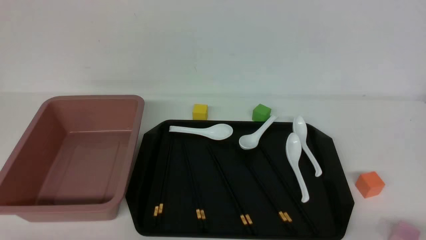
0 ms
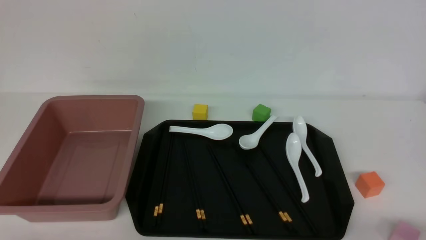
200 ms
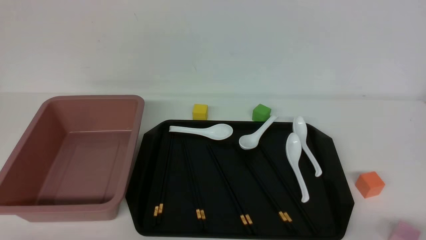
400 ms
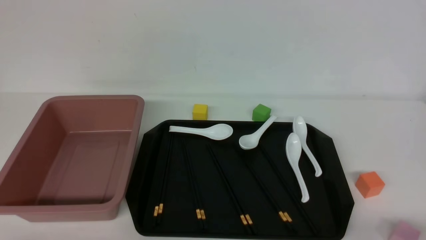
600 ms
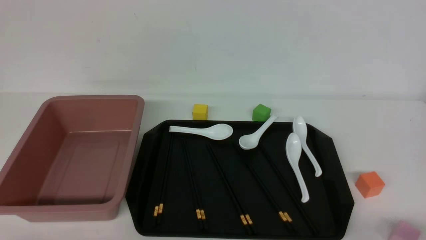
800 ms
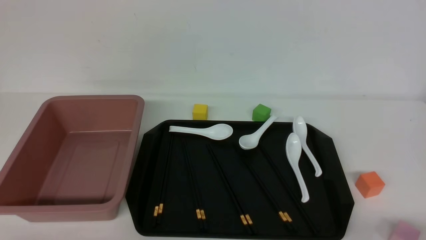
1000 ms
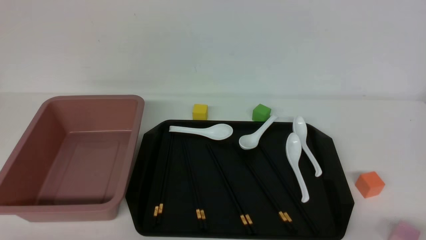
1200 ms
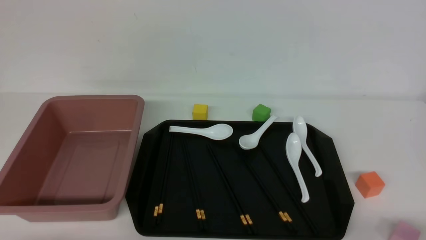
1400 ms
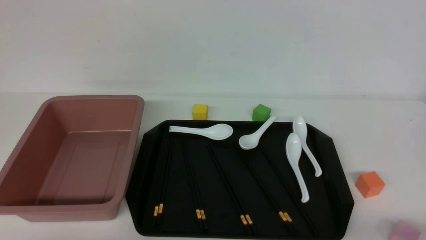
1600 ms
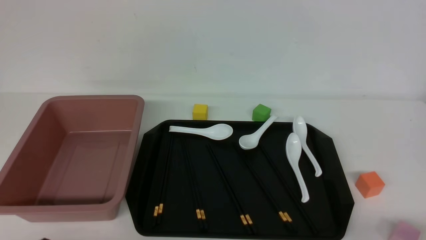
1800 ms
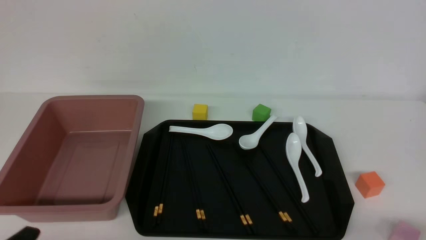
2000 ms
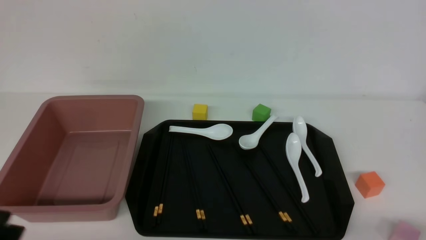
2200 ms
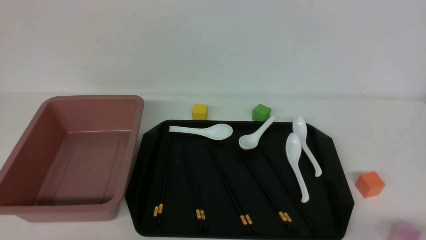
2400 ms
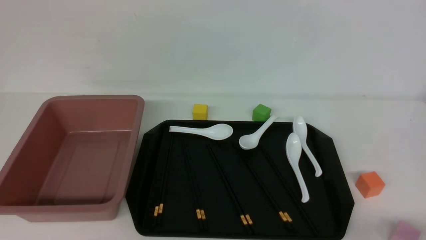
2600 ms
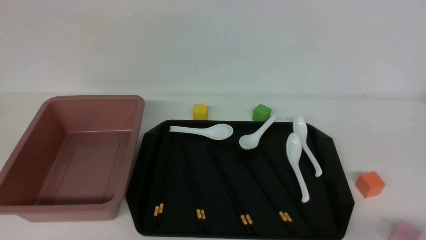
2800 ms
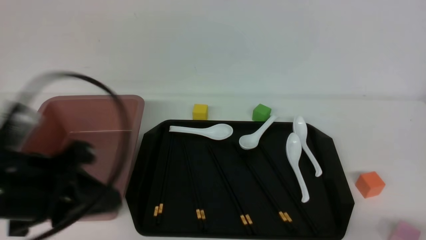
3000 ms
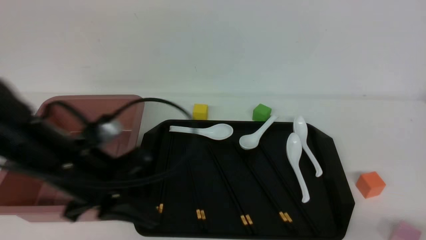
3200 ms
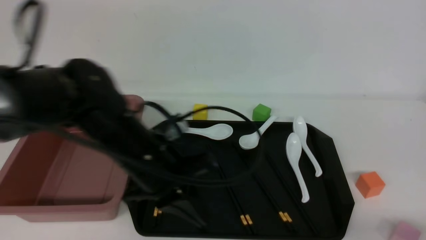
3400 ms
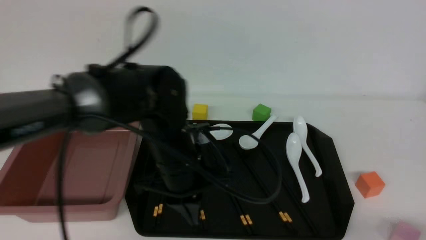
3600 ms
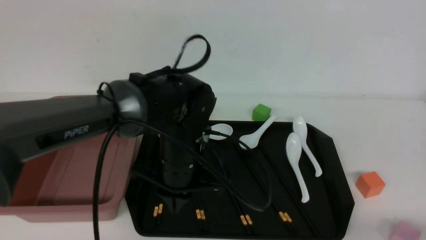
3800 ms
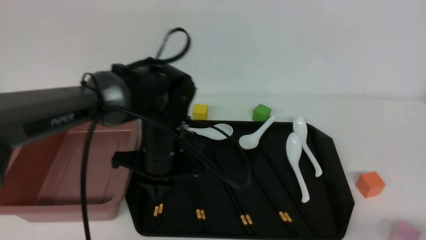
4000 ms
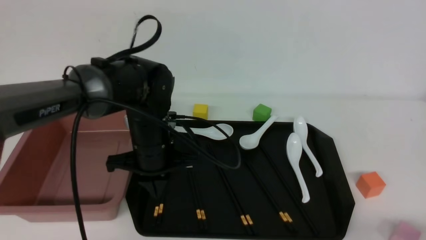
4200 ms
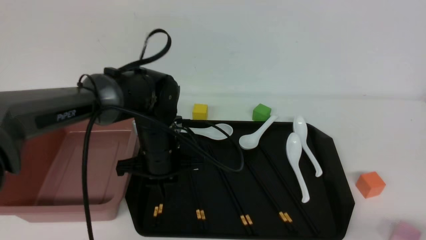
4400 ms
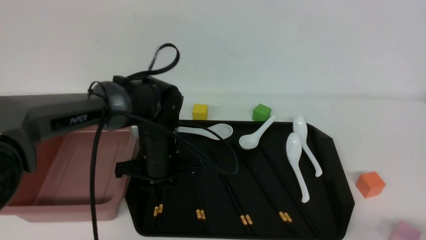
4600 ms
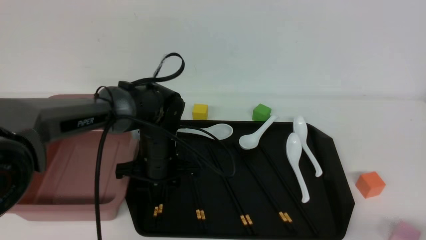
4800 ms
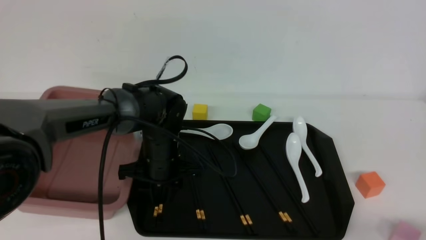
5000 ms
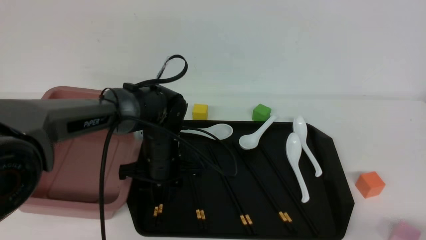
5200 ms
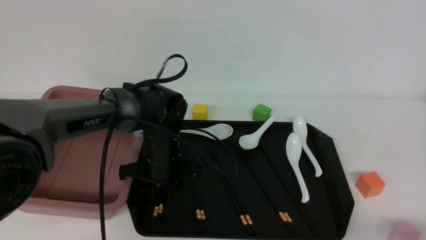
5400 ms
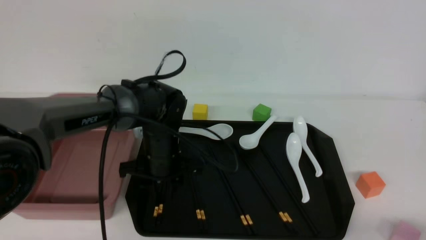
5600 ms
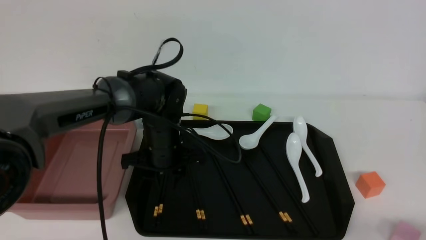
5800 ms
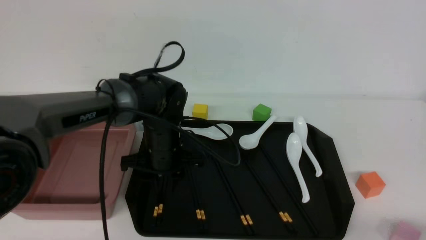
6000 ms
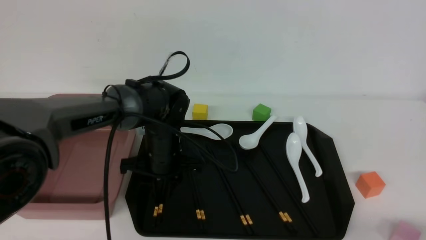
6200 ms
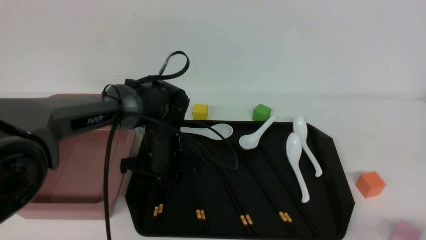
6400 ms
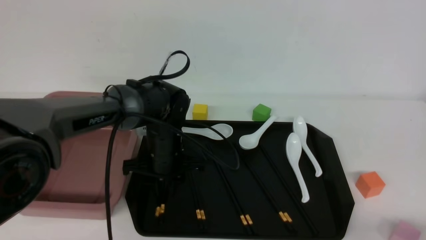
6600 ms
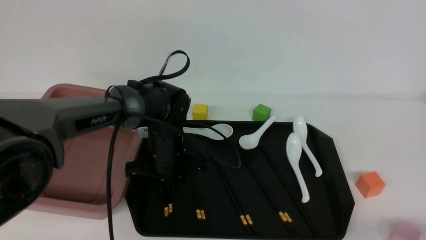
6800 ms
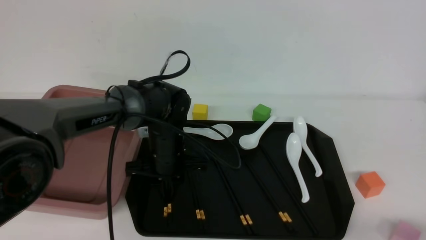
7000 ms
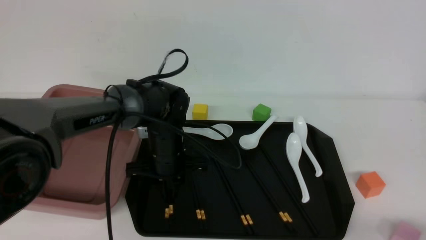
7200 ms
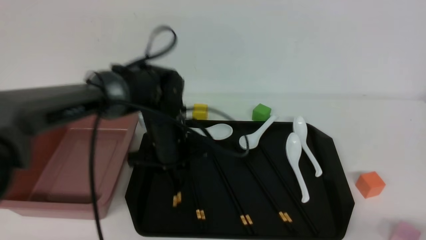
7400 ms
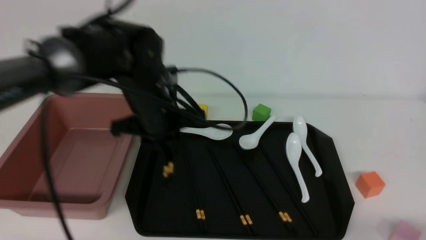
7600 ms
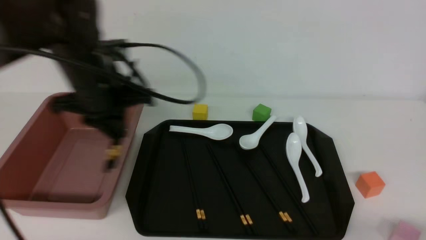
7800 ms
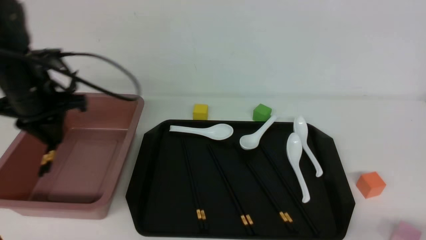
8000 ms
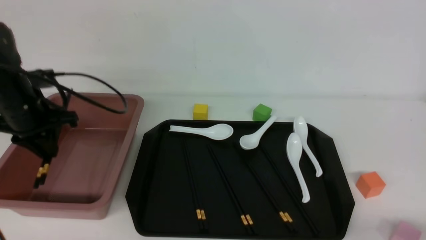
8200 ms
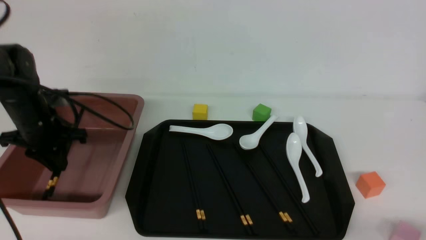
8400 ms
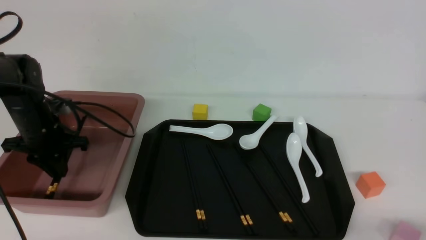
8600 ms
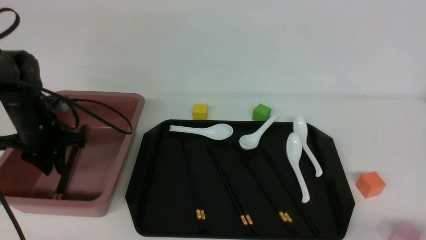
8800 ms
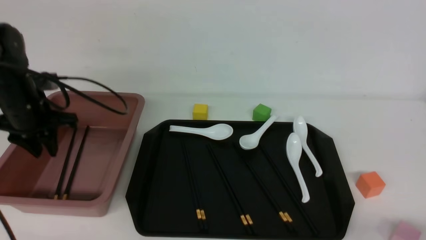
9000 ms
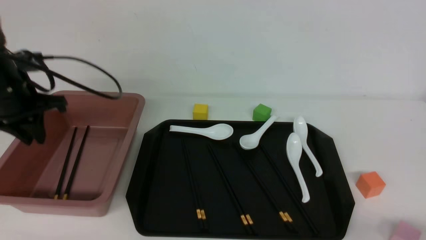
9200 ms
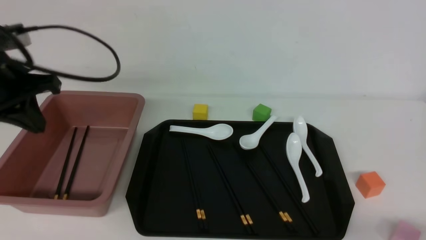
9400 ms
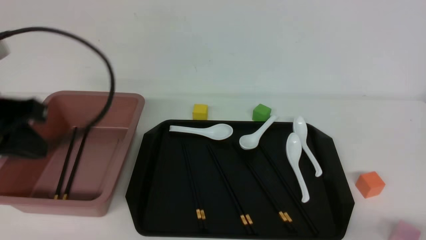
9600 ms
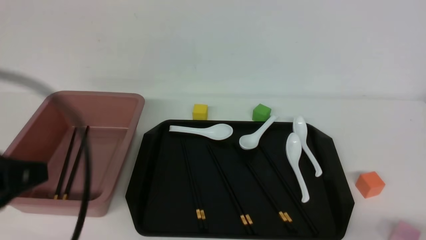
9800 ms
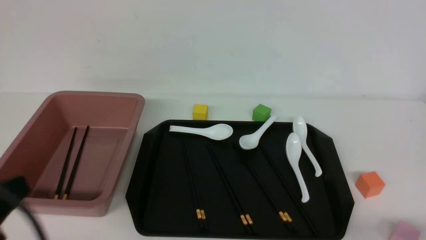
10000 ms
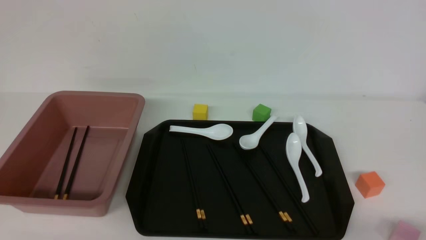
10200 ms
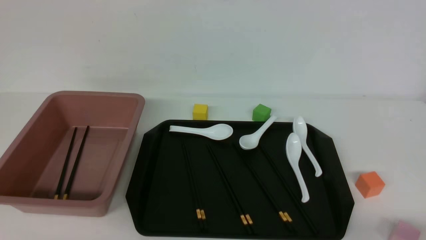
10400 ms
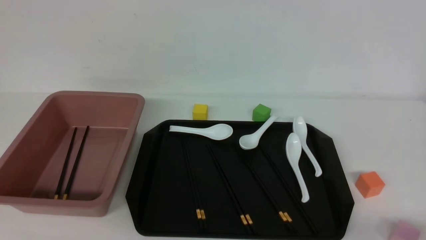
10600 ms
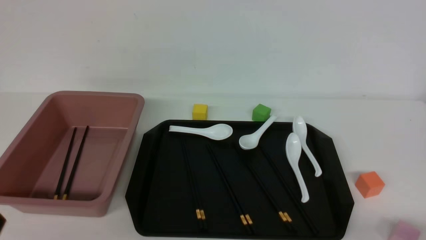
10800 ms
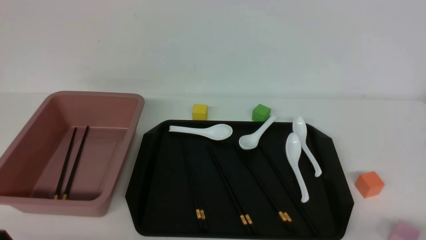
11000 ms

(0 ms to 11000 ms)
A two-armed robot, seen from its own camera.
Step, 0 ms - 7600 ms: use the left arm to grab a pair of chopsticks.
Step, 7800 ms - 9000 ms: use the left arm to put the chopsticks into the lunch box.
1600 ms - 3200 ms: The left gripper goes some 20 cm forward, upward and to the right, and closes its fingers.
3200 ms - 4800 ms: The left gripper heads forward, downward and to the right, covering about 20 cm, and opens.
4800 ms - 6200 ms: The two grippers keep their place.
6200 ms - 7800 ms: The left gripper goes some 15 cm upward and to the left, and closes its fingers.
7800 ms - 9400 ms: The left gripper heads to the left, covering approximately 15 cm.
9400 ms - 11000 ms: The left gripper goes approximately 25 cm backward.

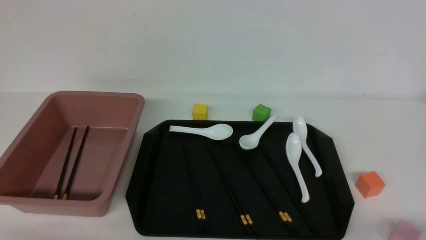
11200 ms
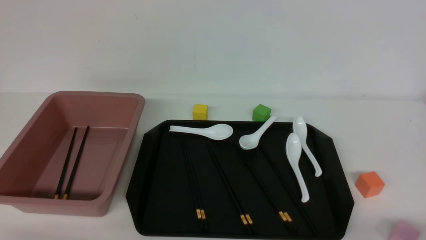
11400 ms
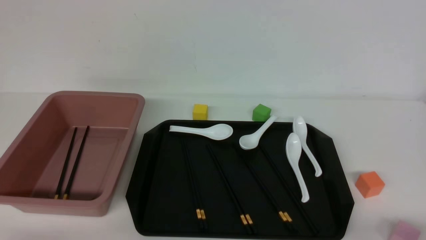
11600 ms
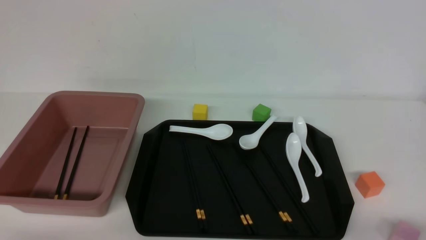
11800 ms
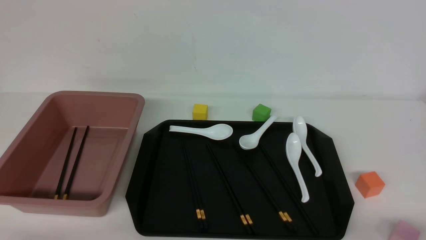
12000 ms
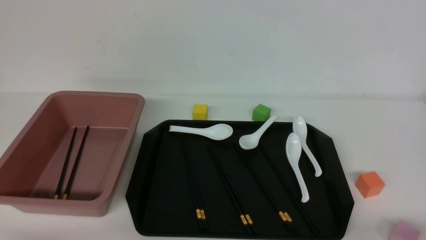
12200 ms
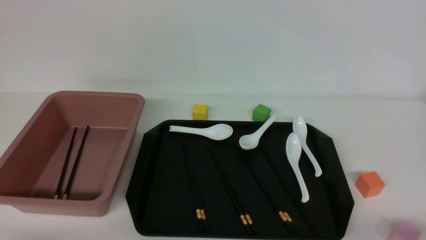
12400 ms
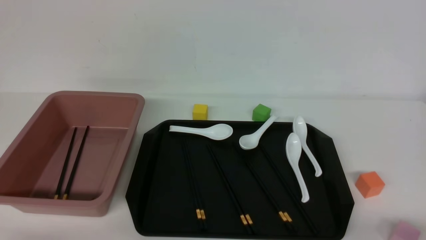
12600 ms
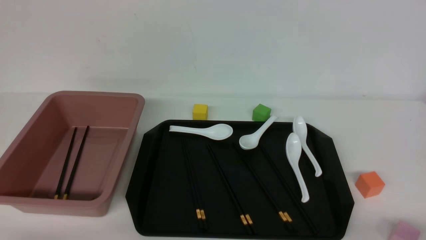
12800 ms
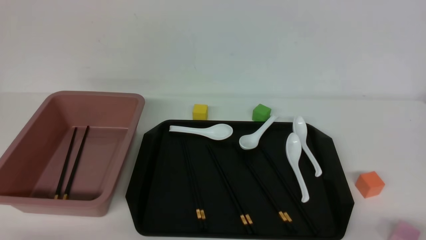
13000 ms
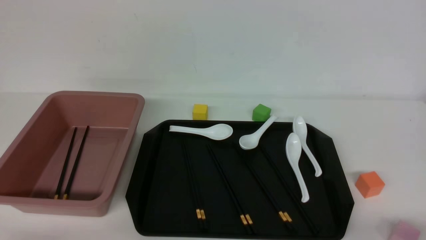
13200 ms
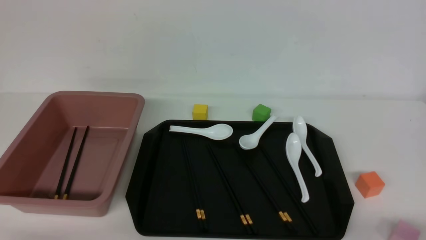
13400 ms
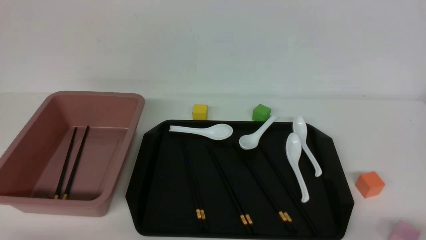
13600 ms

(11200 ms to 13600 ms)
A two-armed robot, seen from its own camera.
12400 ms - 13600 ms: The two grippers keep their place.

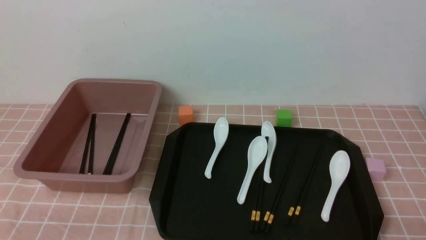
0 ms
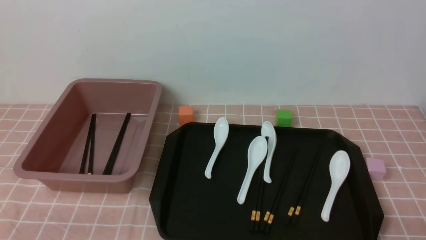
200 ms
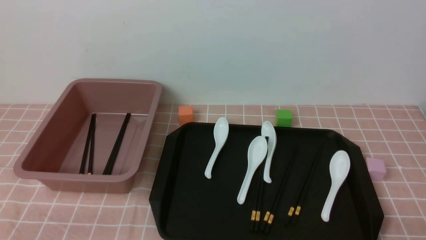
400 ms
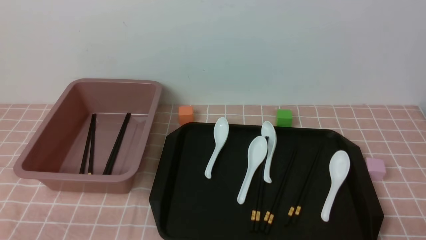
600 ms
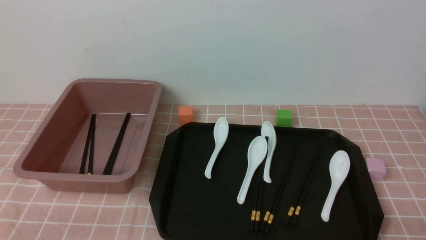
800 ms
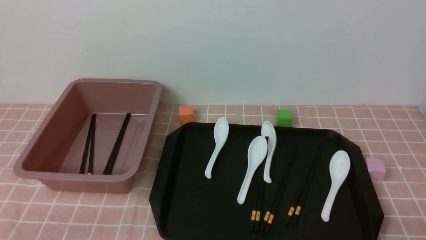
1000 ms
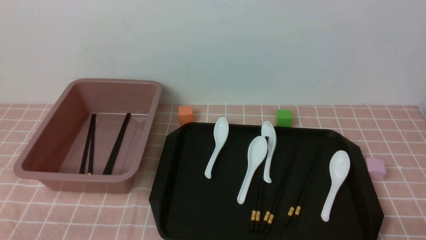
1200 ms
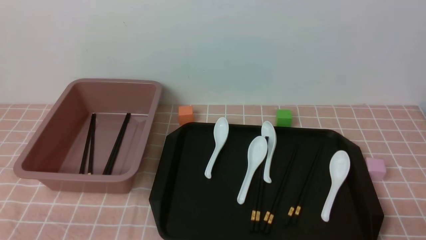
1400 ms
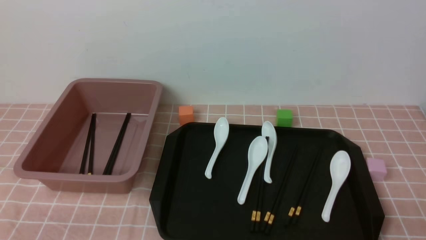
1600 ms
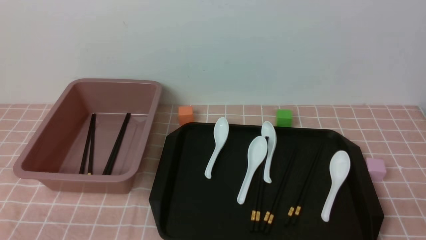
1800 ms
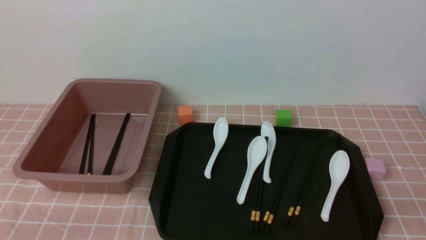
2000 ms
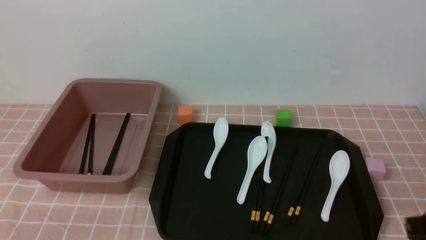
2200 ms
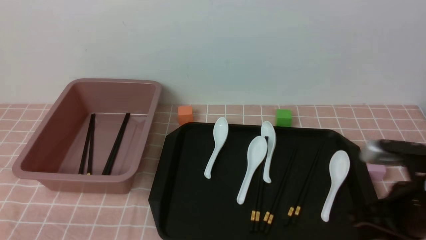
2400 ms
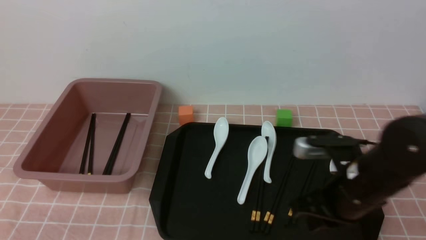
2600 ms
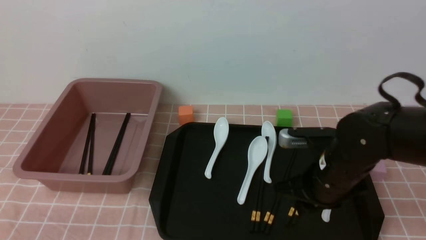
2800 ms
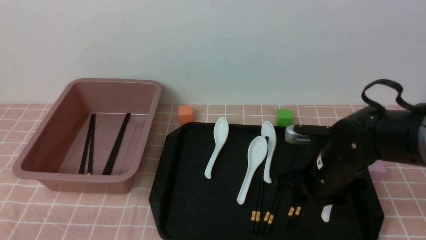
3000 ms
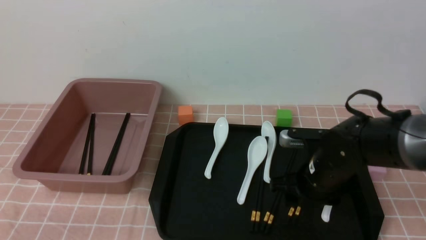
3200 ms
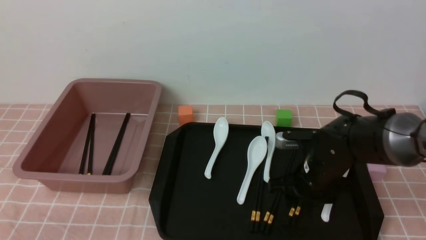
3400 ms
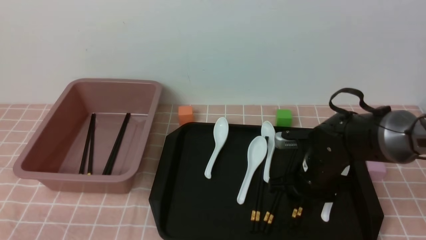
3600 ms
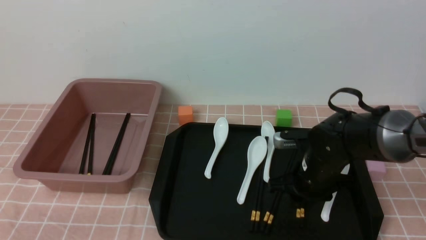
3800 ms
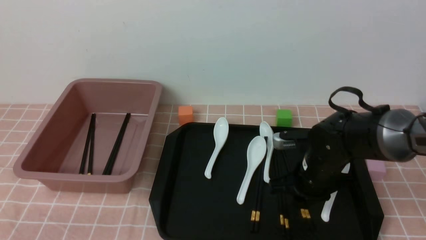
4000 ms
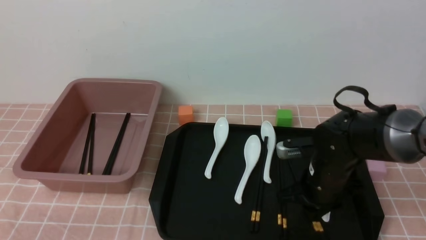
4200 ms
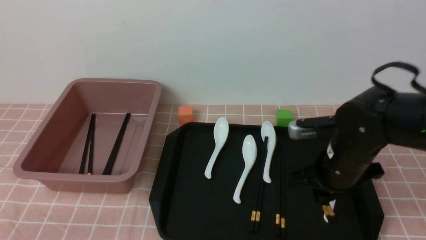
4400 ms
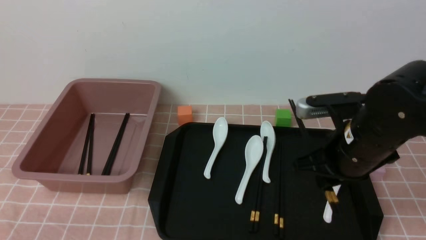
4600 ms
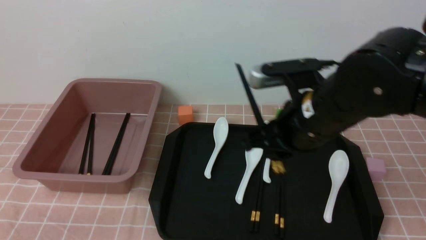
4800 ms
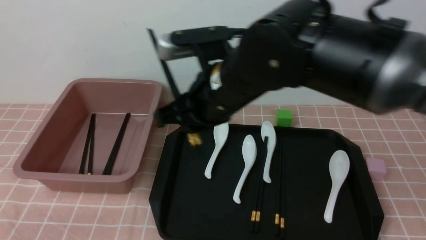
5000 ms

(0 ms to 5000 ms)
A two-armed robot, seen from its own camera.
Step, 0 ms - 4600 ms: use the right arm to grab a pair of chopsticks.
1600 ms - 3400 ms: The right gripper goes some 30 cm forward and to the left, and opens up.
3400 ms - 5000 ms: The right gripper travels upward and to the left by some 25 cm, and closes up.
